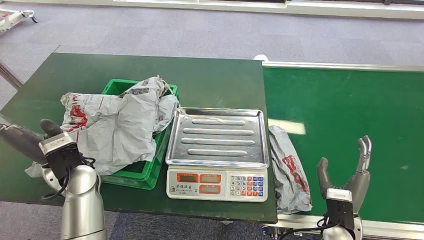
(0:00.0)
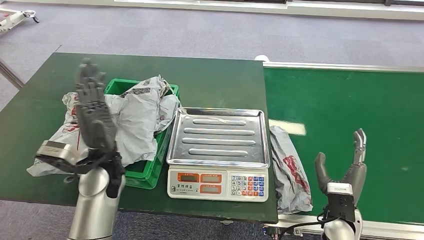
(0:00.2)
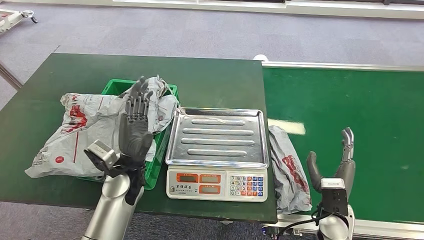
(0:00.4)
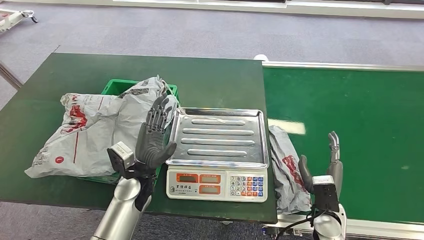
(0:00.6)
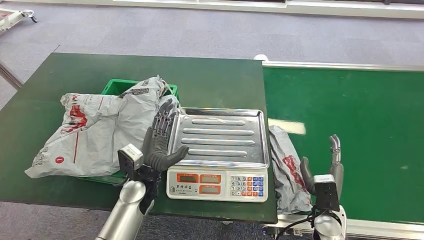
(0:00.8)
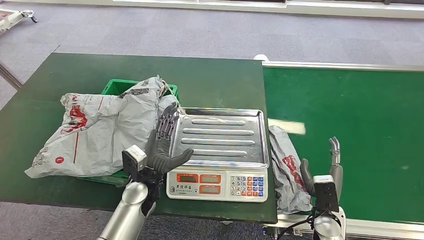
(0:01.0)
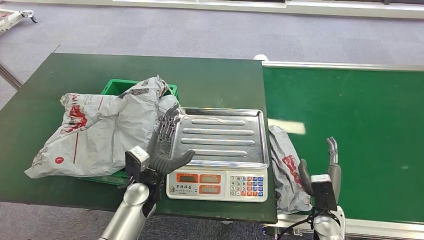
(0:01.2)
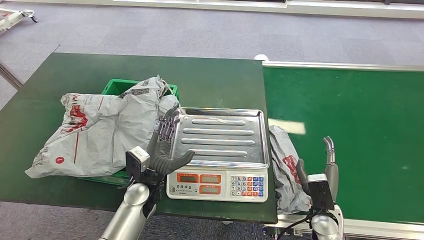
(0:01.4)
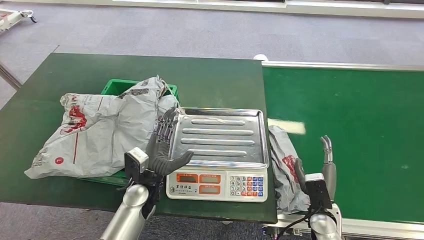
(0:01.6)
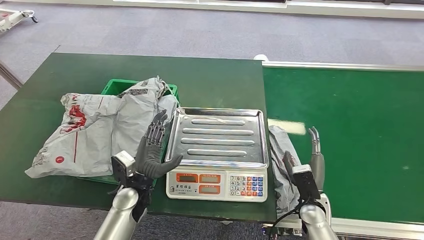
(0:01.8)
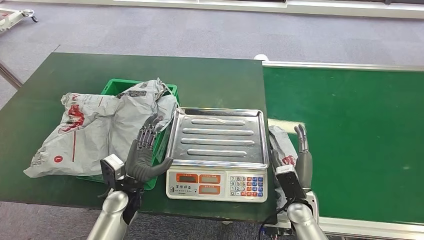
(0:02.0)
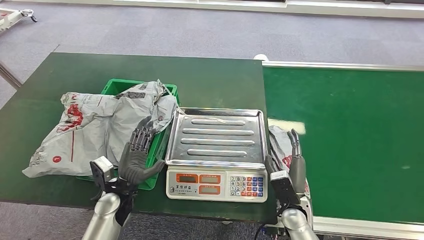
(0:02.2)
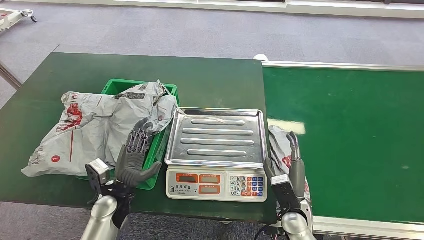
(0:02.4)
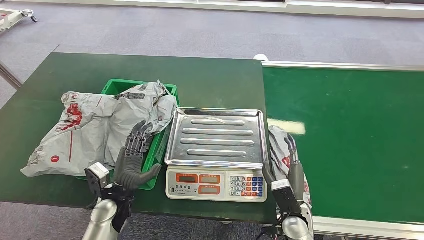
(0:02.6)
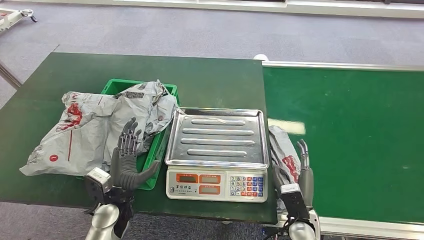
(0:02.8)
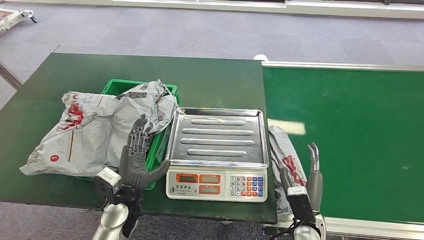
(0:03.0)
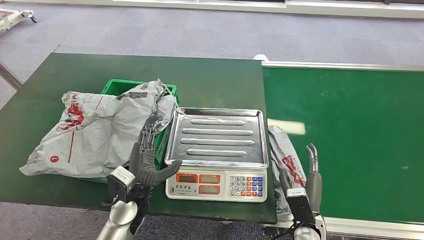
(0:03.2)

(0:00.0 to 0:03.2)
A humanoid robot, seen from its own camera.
Step, 0:00.0 - 0:03.2: Place the package into the parcel locker.
0:00.0 - 0:01.6: The right hand heads downward, covering roughly 5 cm. The left hand travels to the right and downward by some 15 cm.
0:01.6 - 0:03.2: The right hand shifts by some 5 cm.

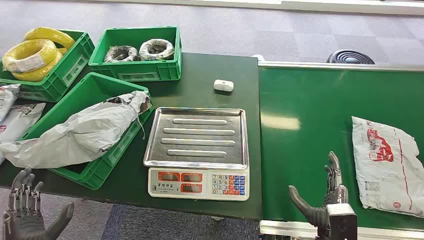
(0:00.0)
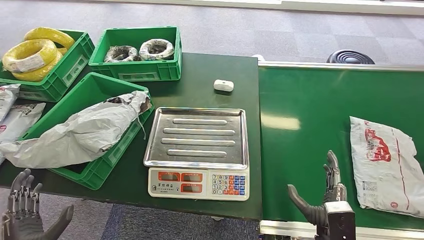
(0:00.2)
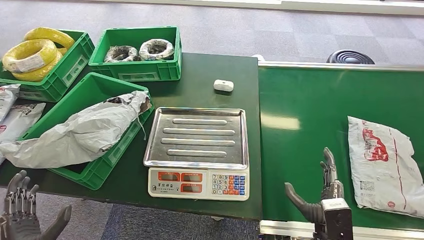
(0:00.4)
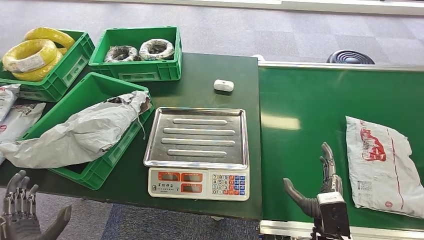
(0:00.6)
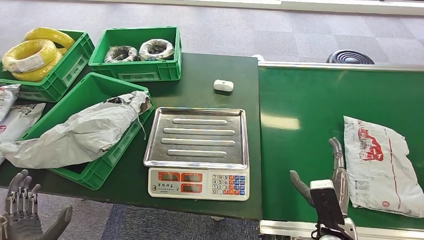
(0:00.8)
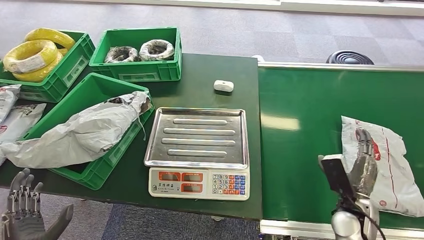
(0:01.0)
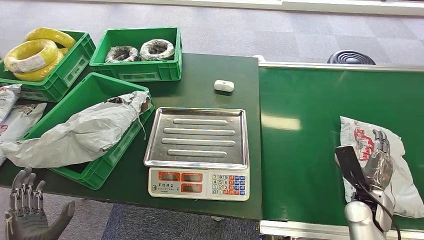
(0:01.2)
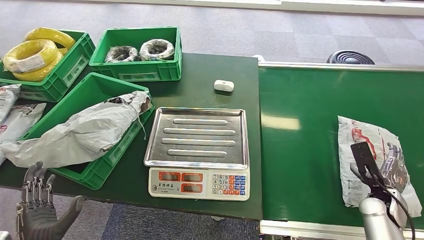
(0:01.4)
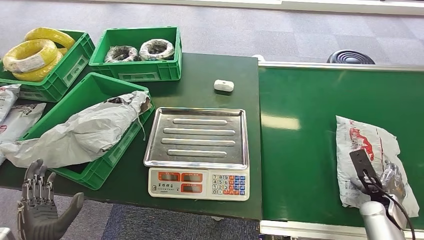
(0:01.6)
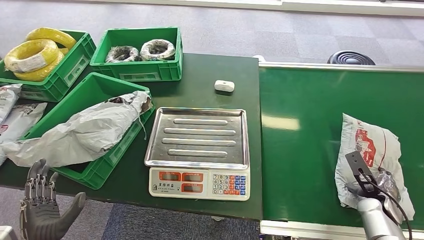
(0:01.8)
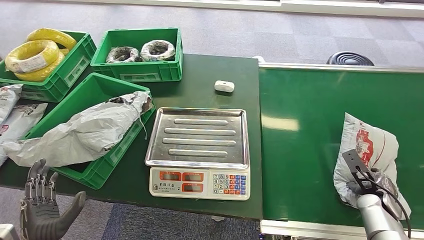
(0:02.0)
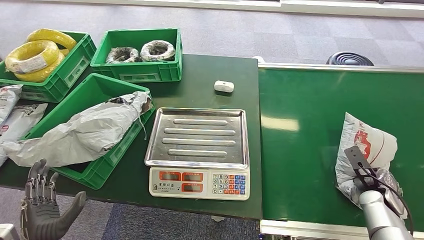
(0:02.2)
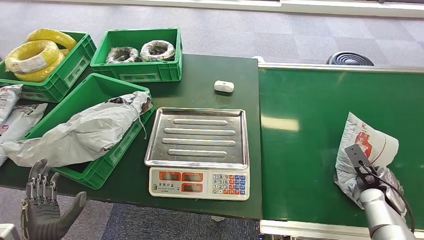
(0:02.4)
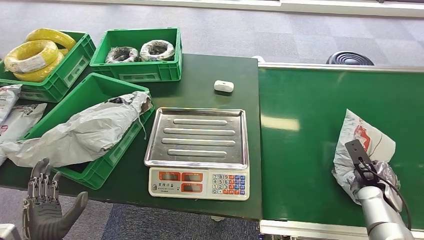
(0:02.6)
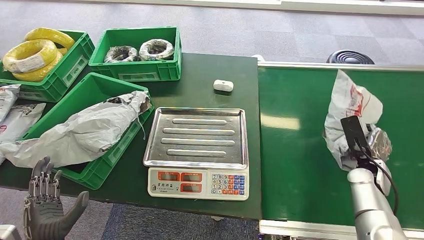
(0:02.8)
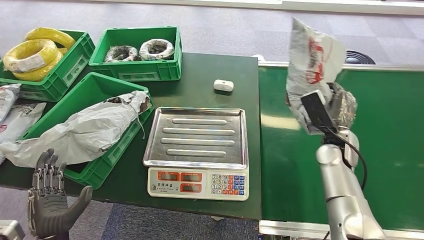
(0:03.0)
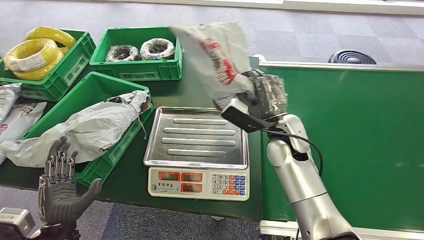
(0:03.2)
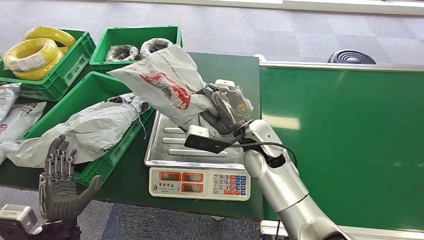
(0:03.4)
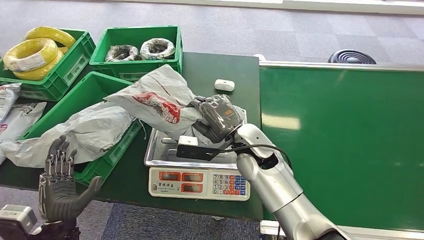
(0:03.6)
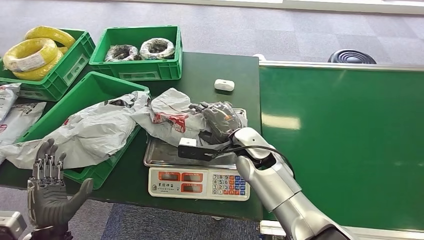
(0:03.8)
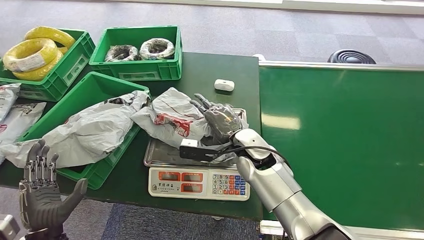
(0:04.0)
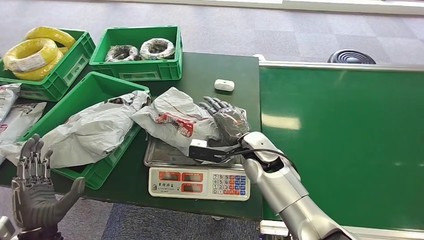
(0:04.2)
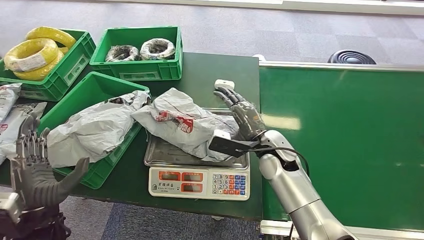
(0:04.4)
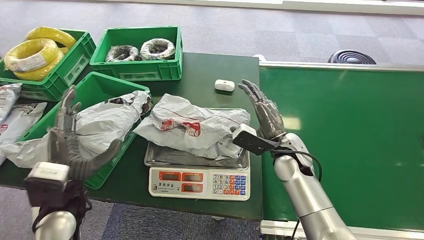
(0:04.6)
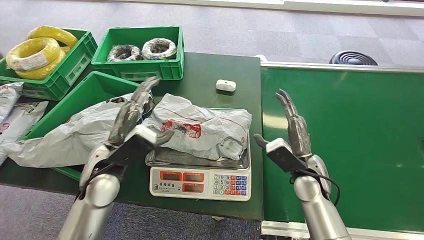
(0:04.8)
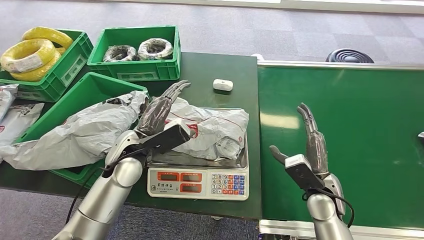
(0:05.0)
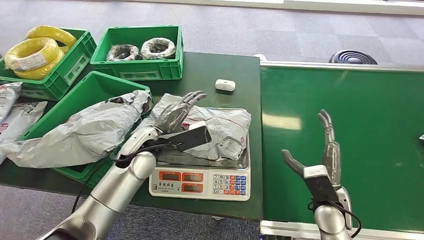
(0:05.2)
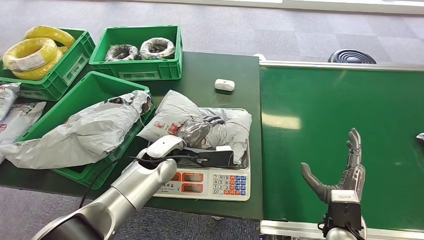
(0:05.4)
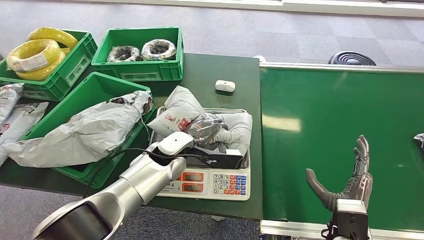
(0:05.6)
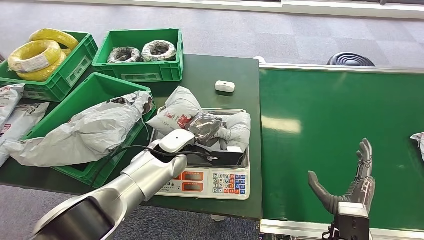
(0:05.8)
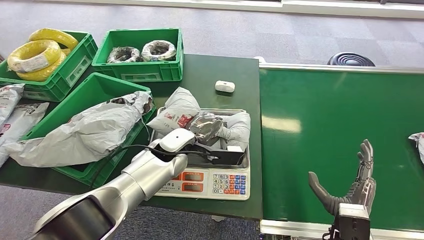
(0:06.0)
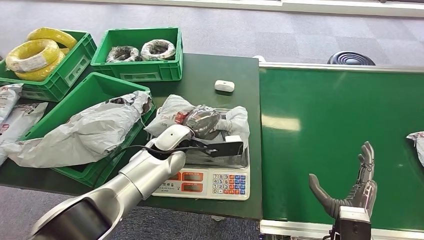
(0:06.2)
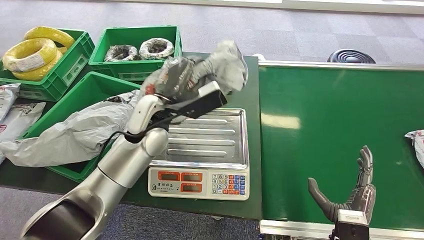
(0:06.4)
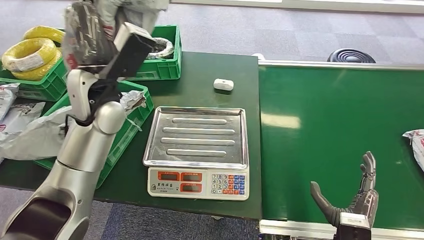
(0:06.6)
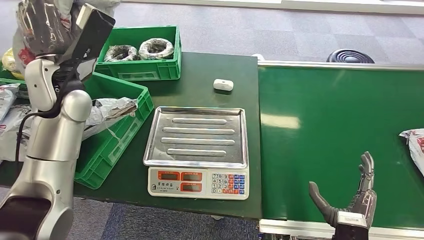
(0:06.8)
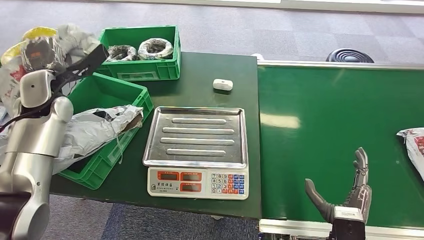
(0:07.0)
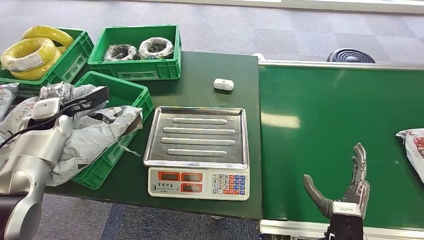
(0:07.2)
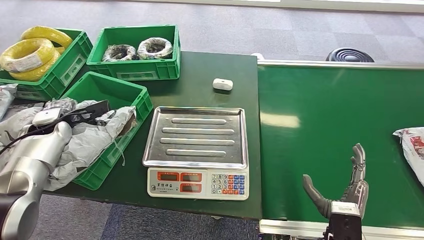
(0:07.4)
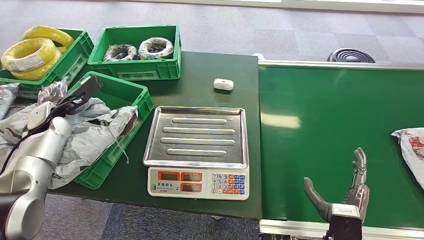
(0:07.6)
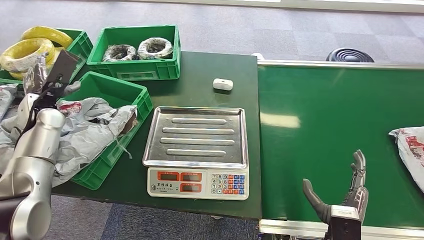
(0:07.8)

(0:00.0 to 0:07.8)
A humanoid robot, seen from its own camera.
Step, 0:00.0 - 0:03.2: Pick up the package from the conveyor belt.
Step, 0:03.4 - 0:04.4: Place the package onto the inbound machine.
Step, 0:04.8 - 0:06.6: Pick up the package from the inbound machine.
Step, 0:06.8 - 0:07.8: Place the package into the parcel locker.

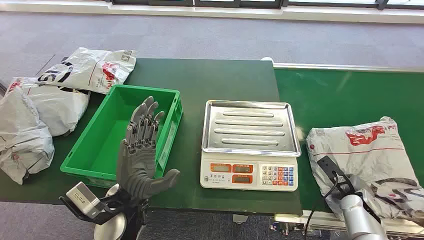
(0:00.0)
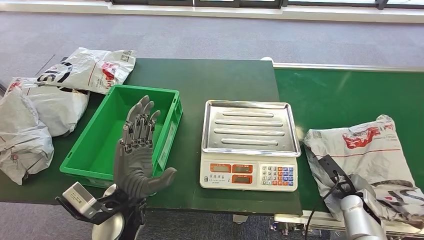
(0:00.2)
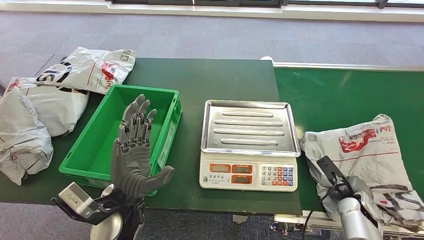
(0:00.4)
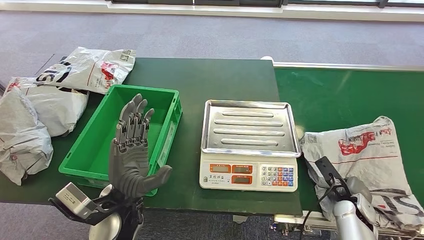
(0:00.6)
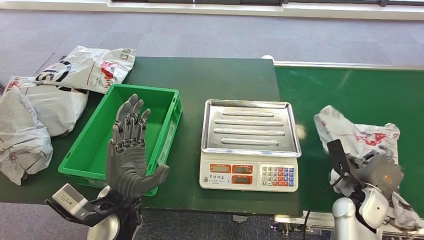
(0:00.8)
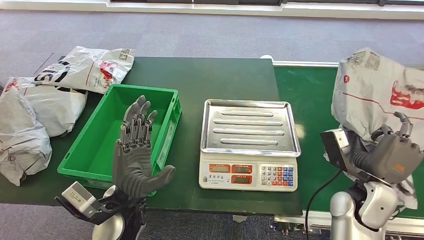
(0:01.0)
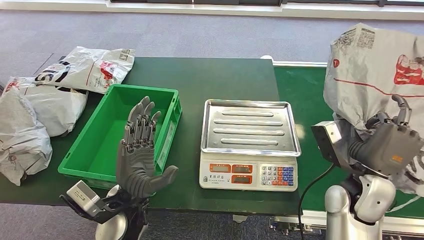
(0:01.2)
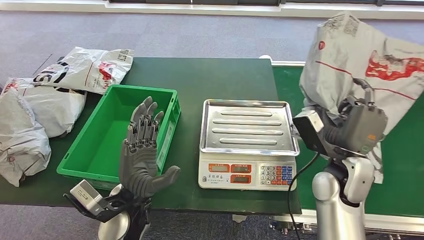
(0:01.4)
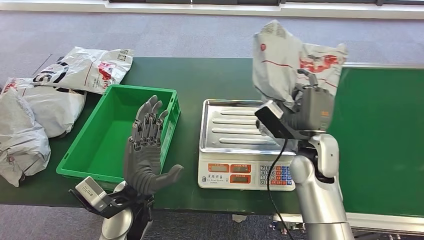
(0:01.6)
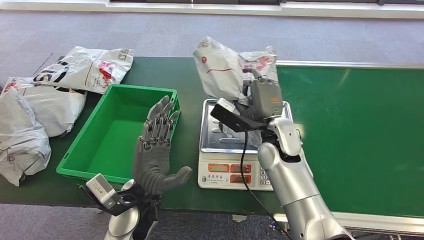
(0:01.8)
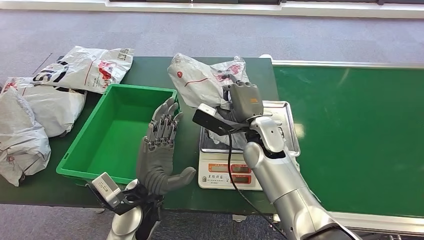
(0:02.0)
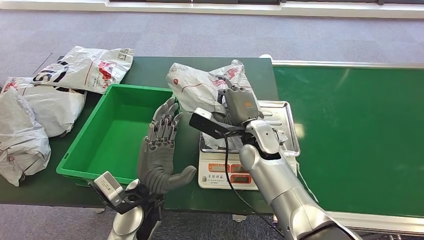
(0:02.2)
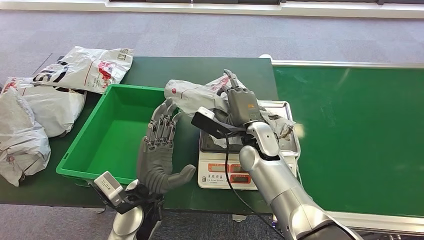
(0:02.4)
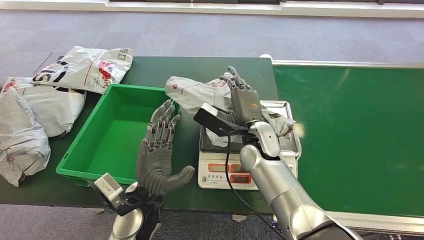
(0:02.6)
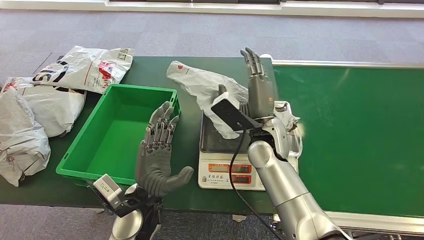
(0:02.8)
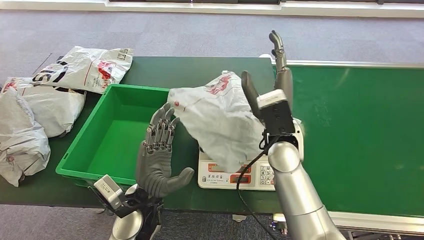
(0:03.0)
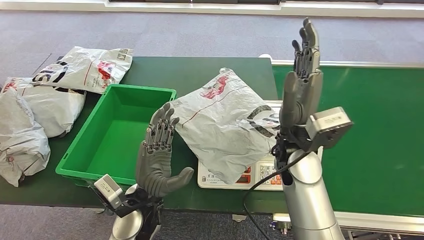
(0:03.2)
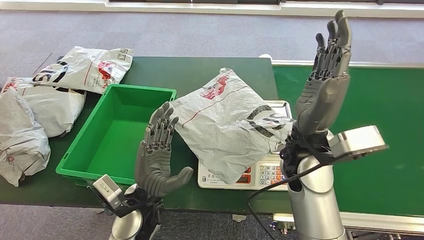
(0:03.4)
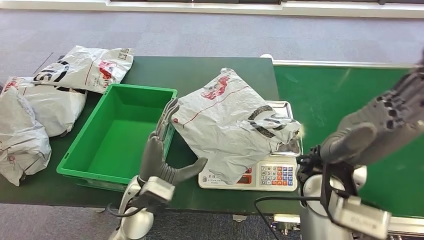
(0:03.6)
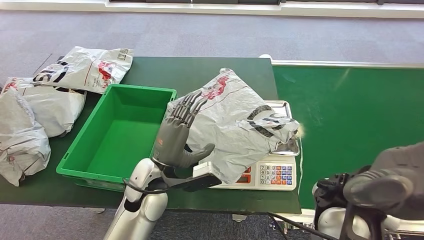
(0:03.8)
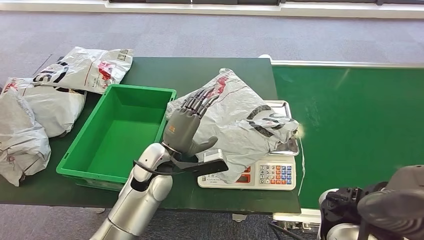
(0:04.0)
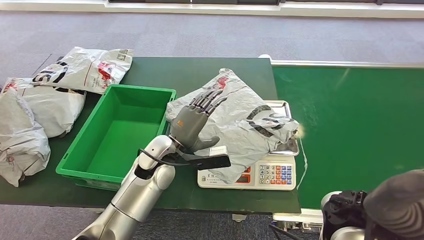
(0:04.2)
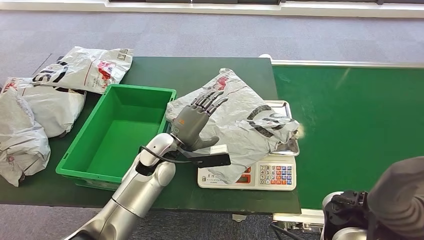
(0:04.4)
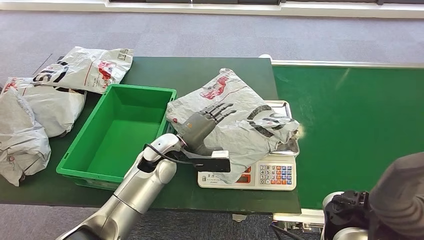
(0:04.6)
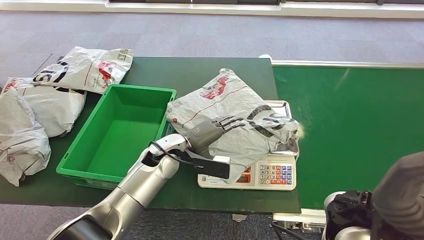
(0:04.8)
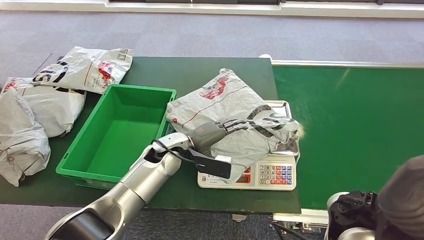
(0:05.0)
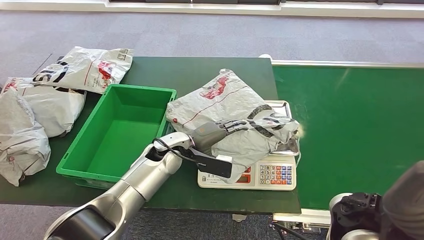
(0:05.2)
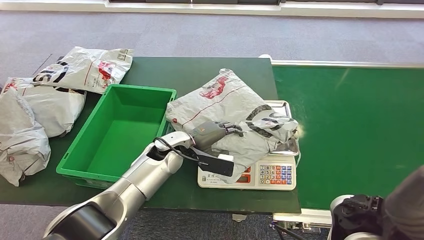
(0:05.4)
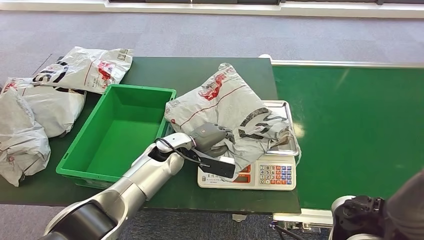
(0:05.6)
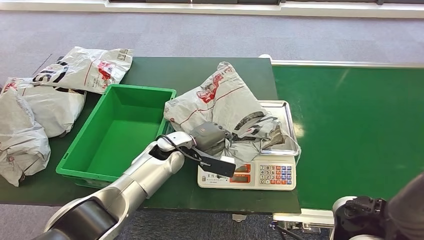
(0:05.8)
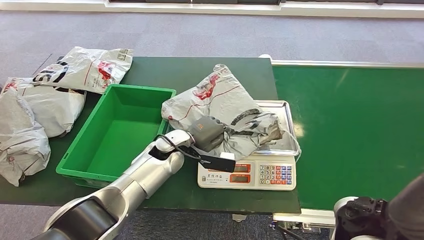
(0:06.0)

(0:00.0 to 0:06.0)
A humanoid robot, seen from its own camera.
Step, 0:00.0 - 0:01.2: Pick up the package from the conveyor belt.
Step, 0:01.4 - 0:04.0: Place the package onto the inbound machine.
0:04.4 - 0:06.0: The left hand ends up about 5 cm from where it was.
